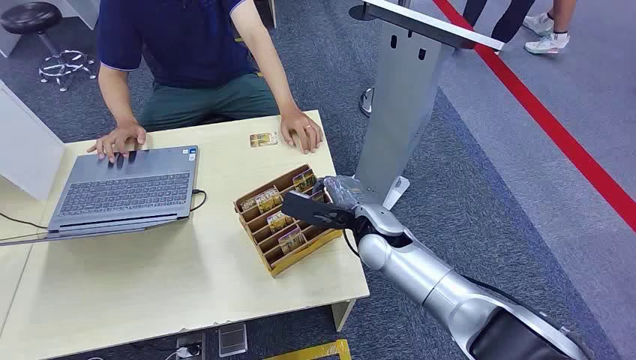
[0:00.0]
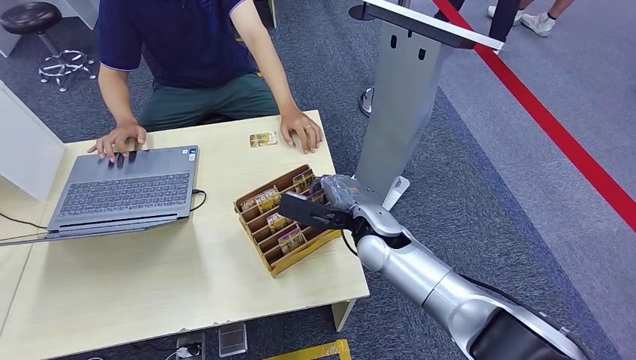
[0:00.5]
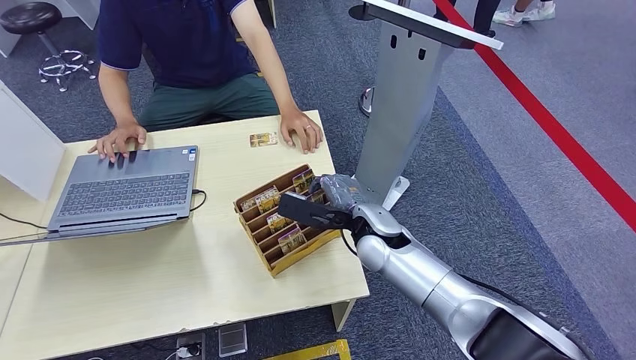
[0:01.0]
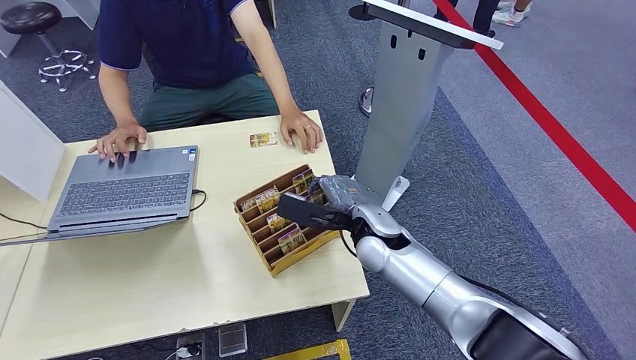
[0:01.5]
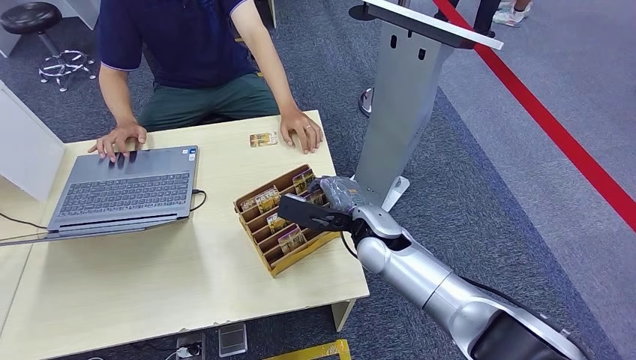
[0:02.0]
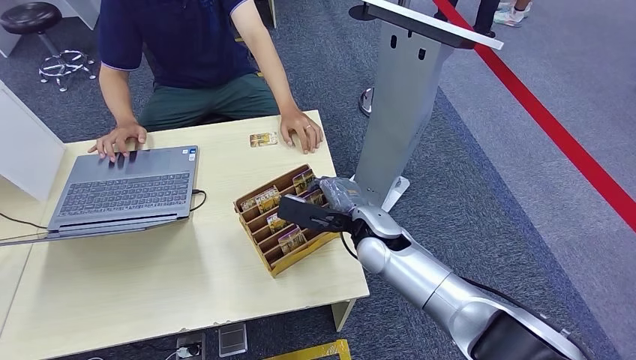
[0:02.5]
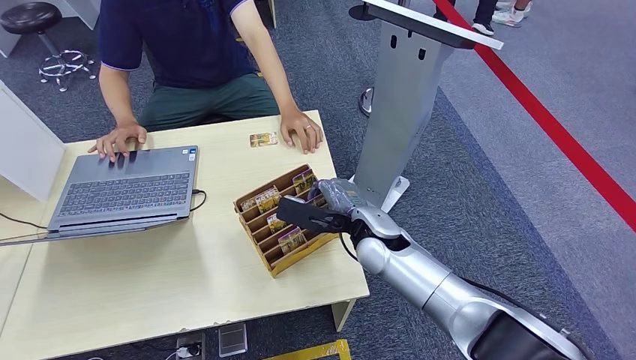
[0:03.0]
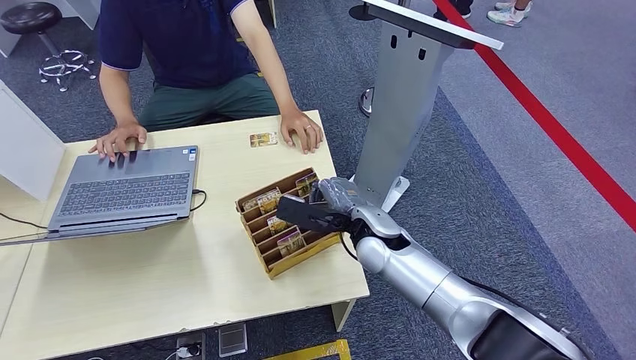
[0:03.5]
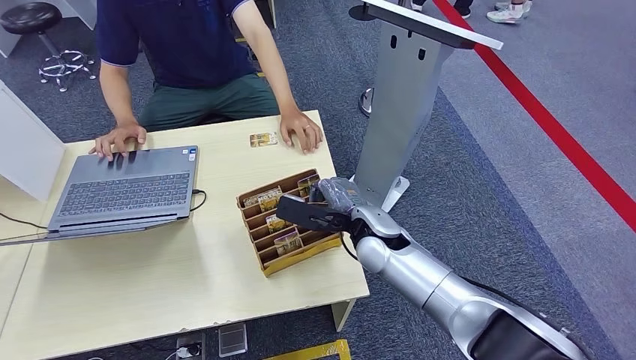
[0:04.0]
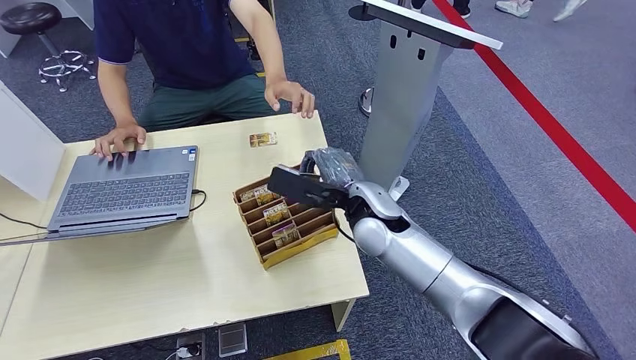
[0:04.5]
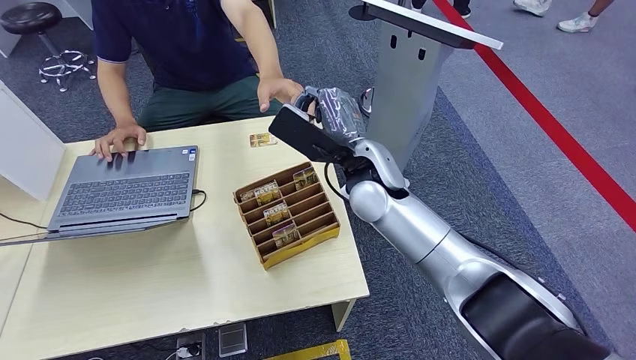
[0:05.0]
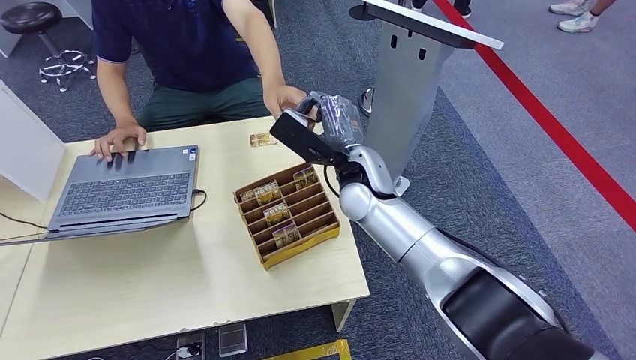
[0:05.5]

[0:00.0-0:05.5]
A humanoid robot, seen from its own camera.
Step, 0:00.0 to 0:04.0: Pick up the key card from the card box.
Step, 0:04.5 to 0:05.5: Hand the key card to the target.
0:02.0 to 0:03.5: Neither hand changes place.
0:03.5 to 0:05.5: The right hand heads upward and forward, covering some 10 cm.
